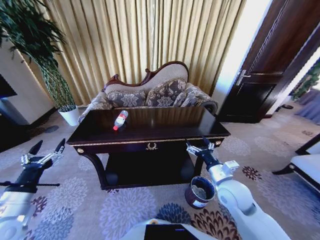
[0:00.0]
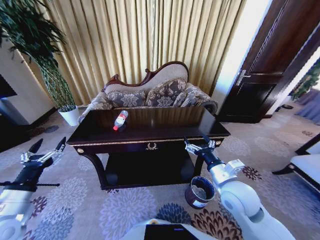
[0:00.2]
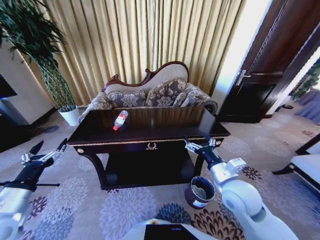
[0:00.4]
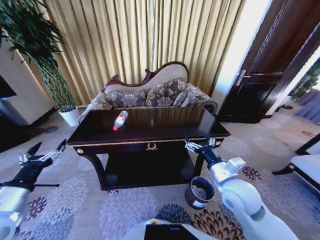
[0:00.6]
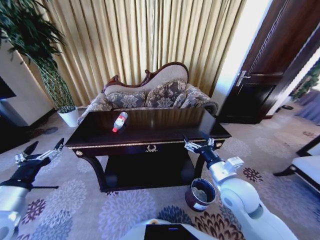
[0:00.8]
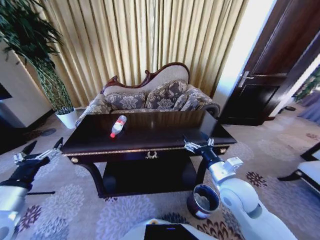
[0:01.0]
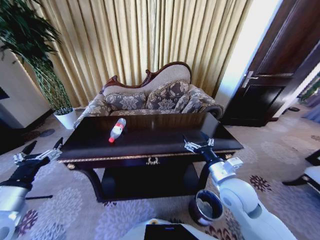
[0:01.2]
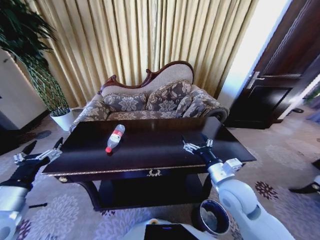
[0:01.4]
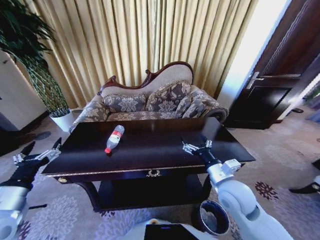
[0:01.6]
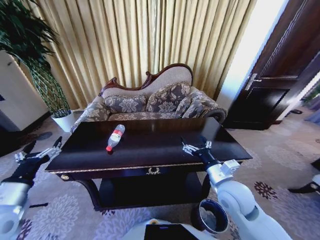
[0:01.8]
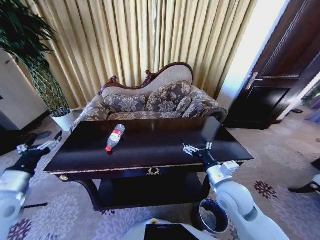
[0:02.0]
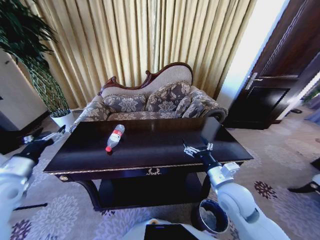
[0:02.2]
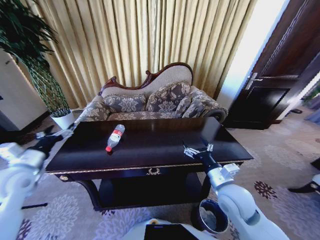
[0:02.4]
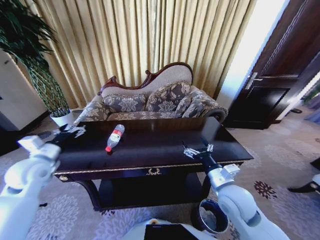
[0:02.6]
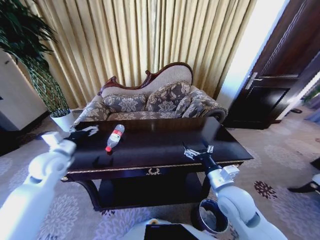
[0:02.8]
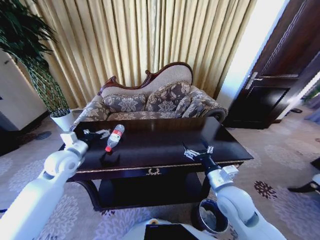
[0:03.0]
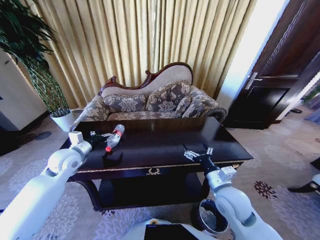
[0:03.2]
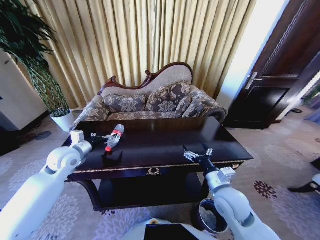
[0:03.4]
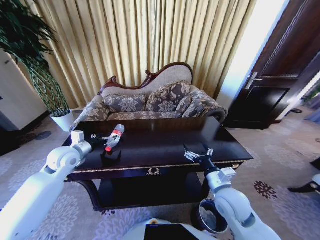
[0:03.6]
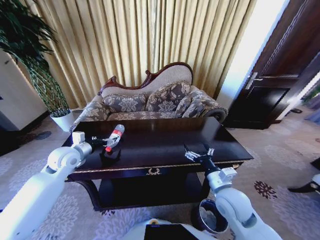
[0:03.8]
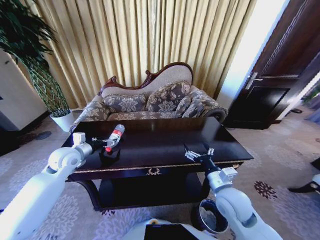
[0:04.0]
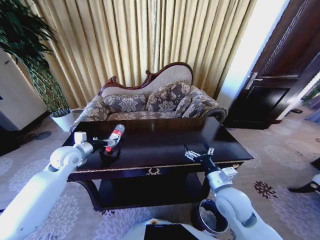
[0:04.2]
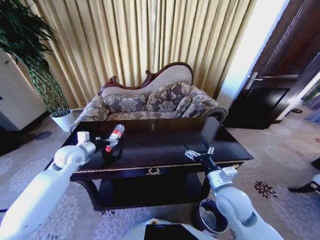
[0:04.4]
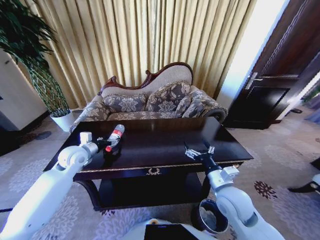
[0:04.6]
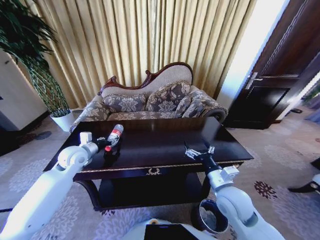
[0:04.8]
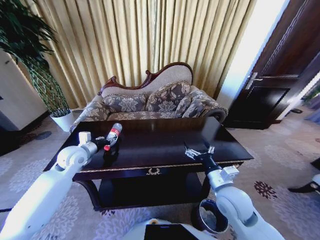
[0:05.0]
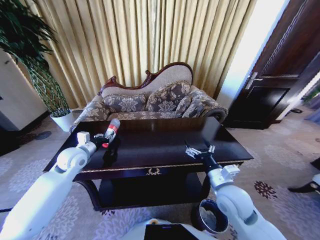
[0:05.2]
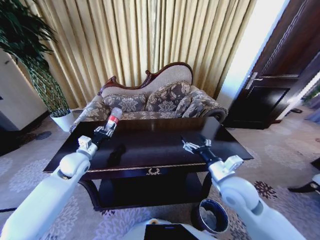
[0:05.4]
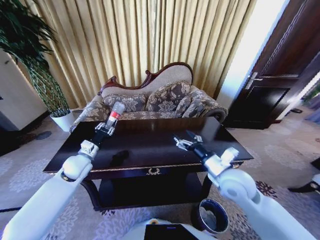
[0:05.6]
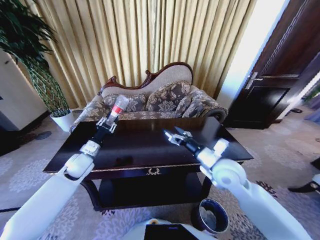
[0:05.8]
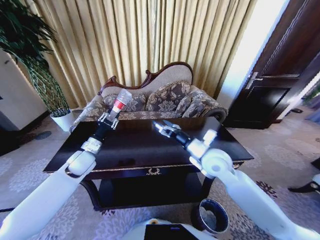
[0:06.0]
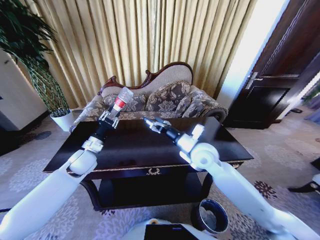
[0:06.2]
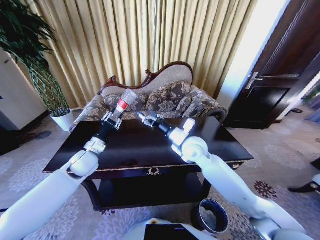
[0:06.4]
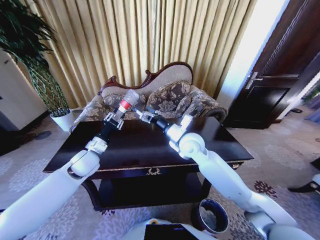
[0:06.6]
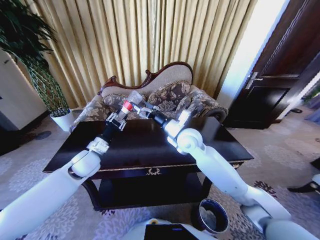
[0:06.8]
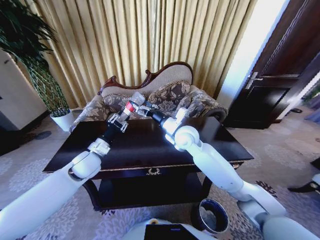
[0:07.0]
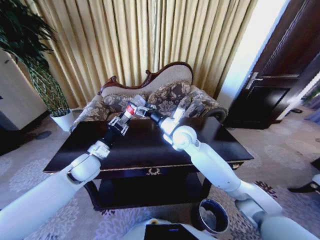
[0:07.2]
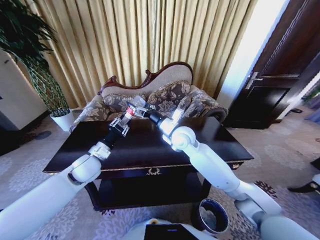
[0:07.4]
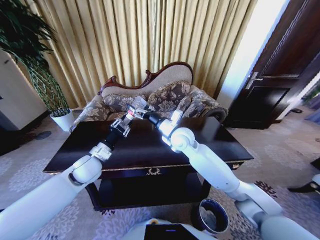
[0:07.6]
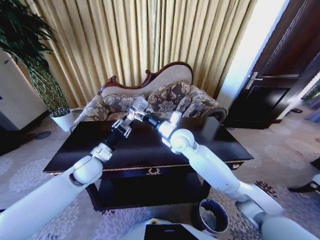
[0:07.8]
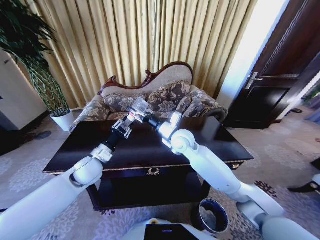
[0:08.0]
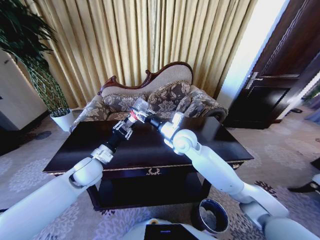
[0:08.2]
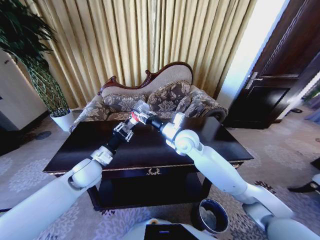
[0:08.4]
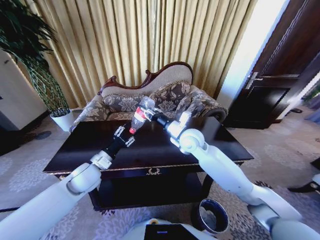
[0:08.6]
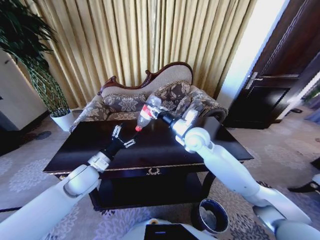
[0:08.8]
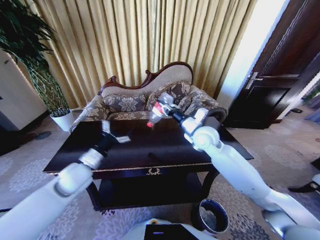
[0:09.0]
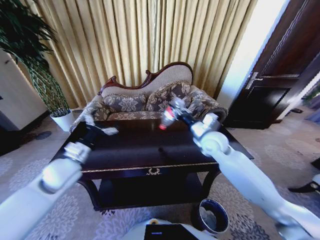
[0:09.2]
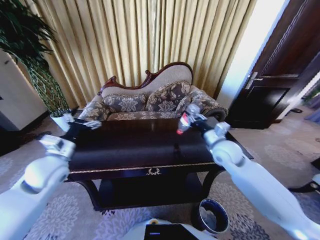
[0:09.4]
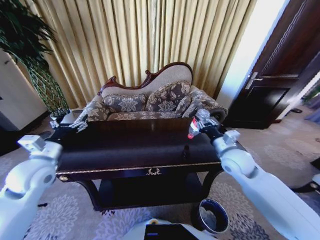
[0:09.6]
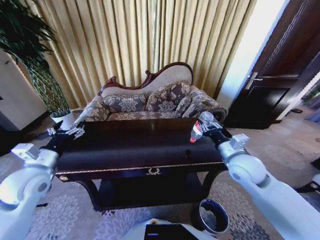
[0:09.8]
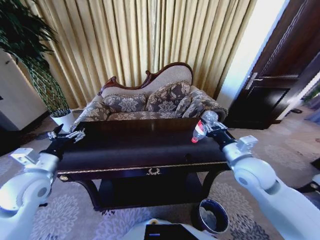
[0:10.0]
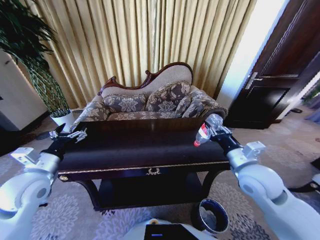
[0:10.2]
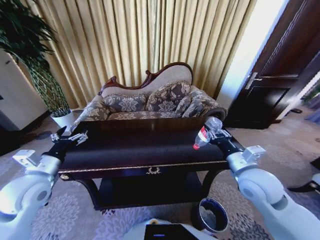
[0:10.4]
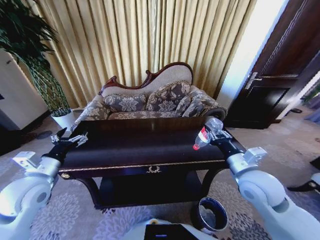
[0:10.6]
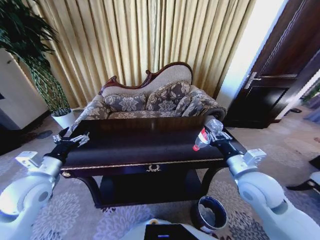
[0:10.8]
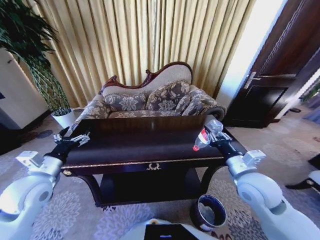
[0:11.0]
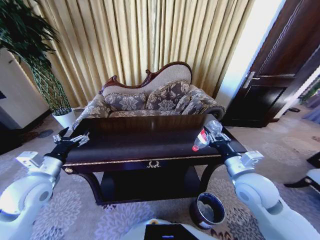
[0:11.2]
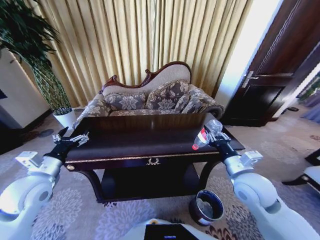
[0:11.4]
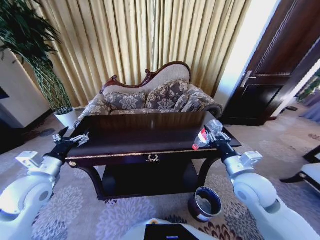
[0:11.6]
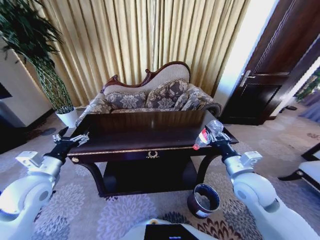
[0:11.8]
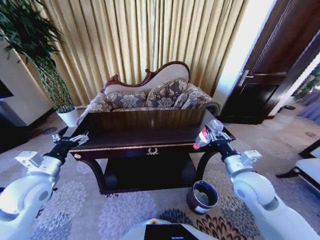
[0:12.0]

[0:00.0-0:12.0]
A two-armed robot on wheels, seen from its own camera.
Task of the whole recording: Move to the front of the table and place the trash on the table into the trash bin.
0:01.6 to 0:03.0: The left gripper moves forward, roughly 20 cm.
0:03.0 to 0:04.4: There are only small adjustments of the grippers.
0:04.4 to 0:06.0: The left gripper closes. The right gripper shifts approximately 15 cm forward and upward.
0:06.0 to 0:07.6: The right gripper heads to the left and forward, covering about 15 cm. The left gripper changes place by some 5 cm.
0:07.6 to 0:09.0: The right gripper travels to the right by roughly 10 cm, and closes; the left gripper opens its fingers.
0:09.0 to 0:10.4: The left gripper is displaced to the left and backward by approximately 10 cm. Meanwhile the right gripper travels backward and to the right by some 20 cm.

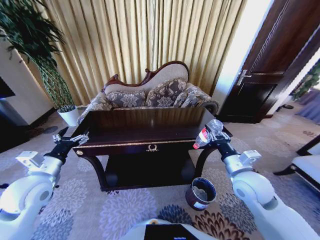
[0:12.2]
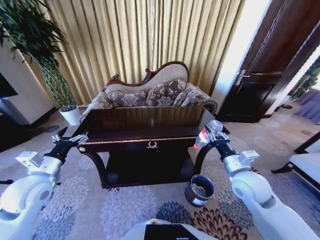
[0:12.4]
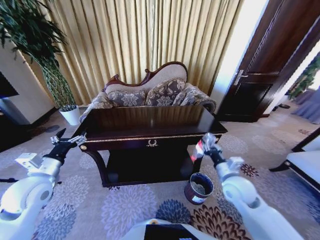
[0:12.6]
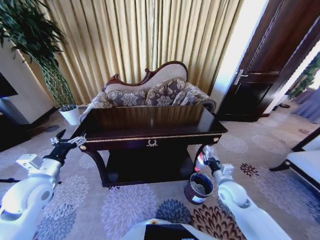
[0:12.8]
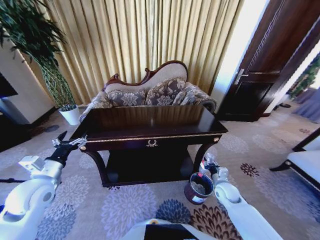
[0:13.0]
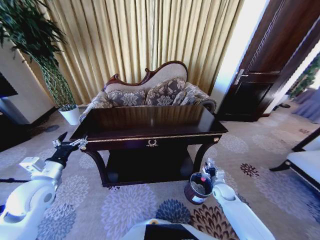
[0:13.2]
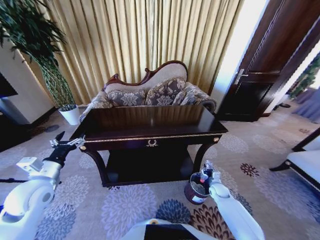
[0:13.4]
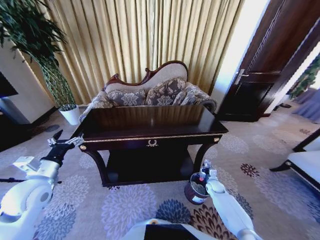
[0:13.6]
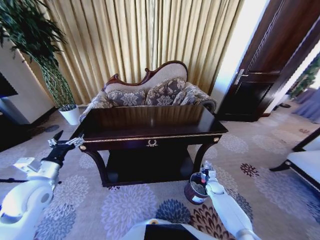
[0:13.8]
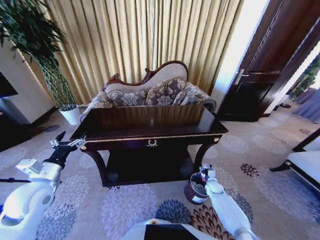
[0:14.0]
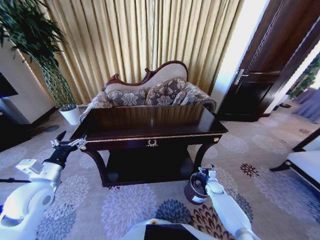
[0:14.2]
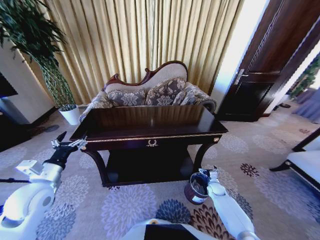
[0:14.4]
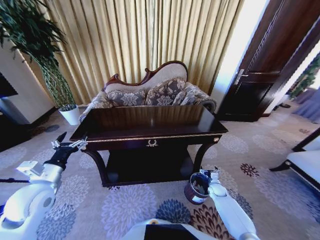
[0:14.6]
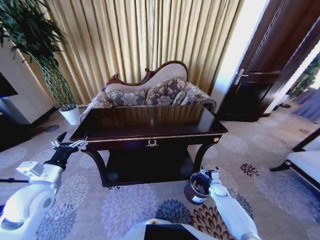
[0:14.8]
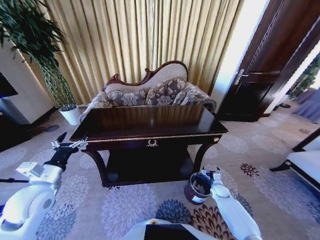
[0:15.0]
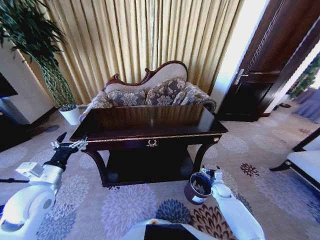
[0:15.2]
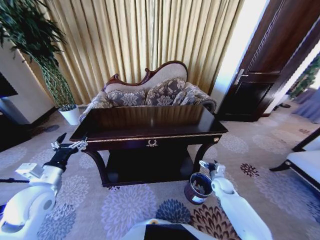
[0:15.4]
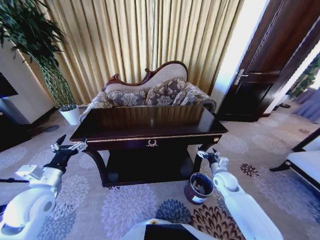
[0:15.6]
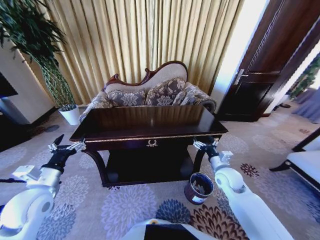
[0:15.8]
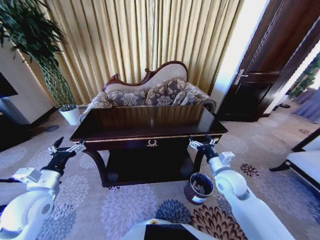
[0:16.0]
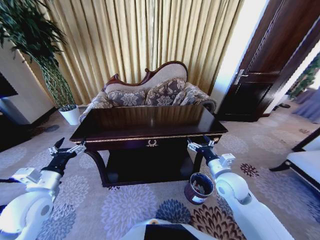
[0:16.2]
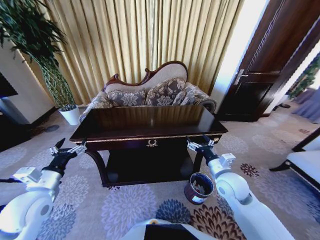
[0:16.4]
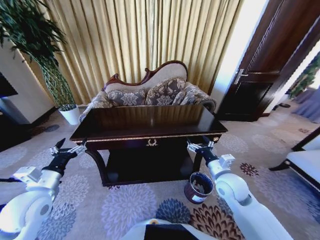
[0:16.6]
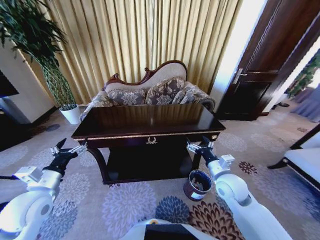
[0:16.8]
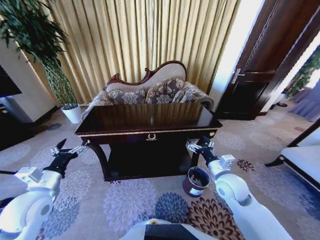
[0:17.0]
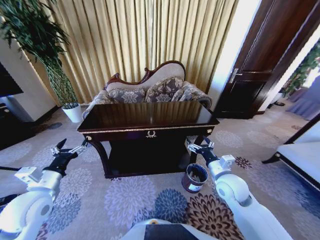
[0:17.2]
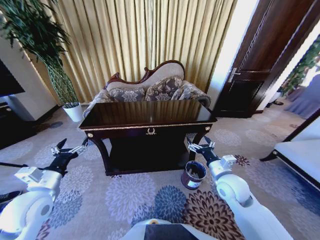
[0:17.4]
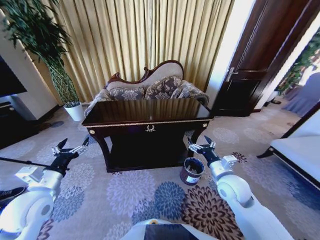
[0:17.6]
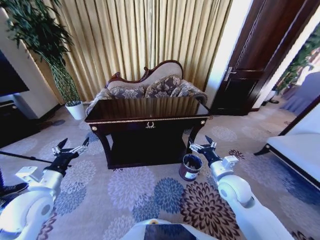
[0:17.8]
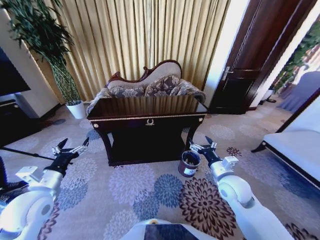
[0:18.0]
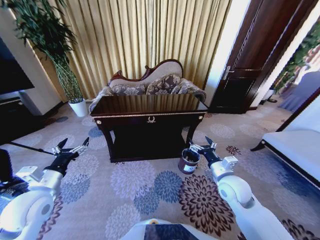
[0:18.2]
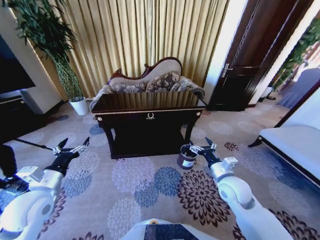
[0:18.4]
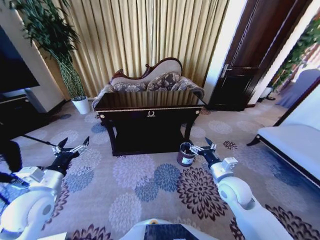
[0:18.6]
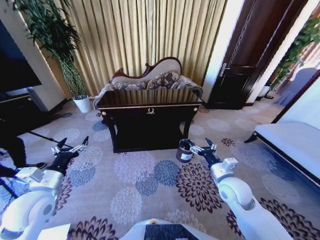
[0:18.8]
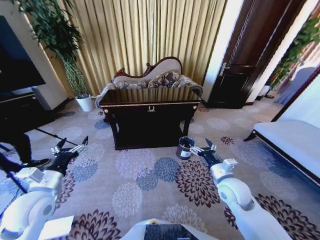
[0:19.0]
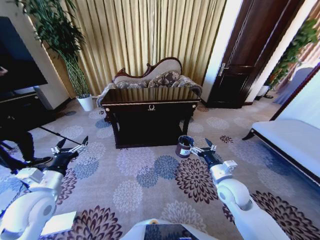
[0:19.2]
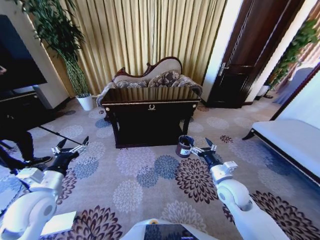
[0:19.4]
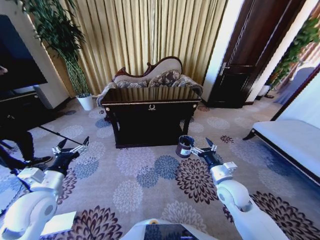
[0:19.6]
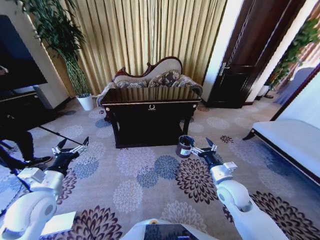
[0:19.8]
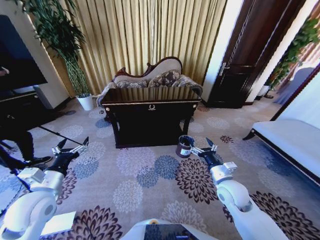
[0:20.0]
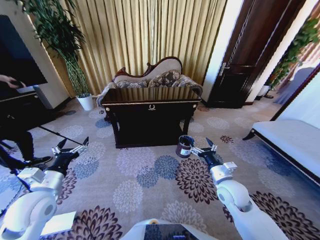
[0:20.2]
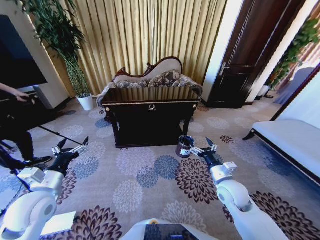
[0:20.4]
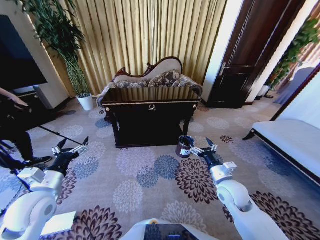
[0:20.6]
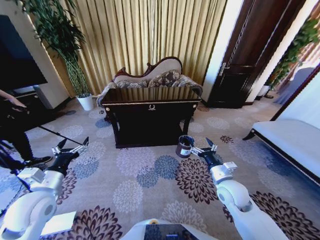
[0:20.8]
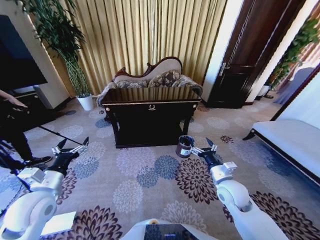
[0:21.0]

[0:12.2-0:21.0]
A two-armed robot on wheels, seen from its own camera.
Task of the whole recording: Move to the front of the table and place the trash on the table into the trash bin.
0:12.2 to 0:13.6: The right gripper travels downward by roughly 35 cm.
0:13.6 to 0:15.2: The right gripper opens up.
0:15.2 to 0:16.6: The right gripper moves upward and to the left, about 30 cm.
0:19.6 to 0:21.0: Both grippers stay about where they are.

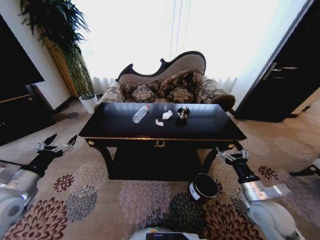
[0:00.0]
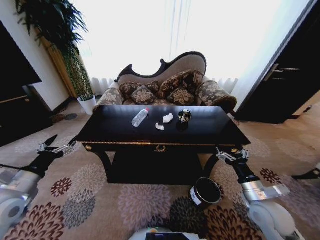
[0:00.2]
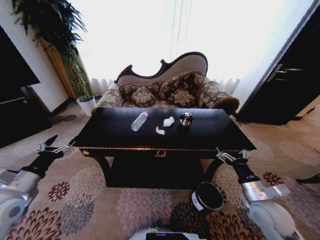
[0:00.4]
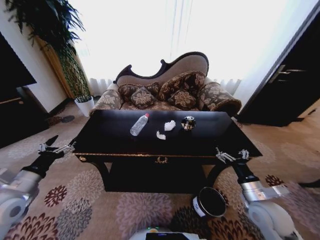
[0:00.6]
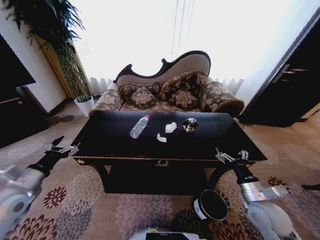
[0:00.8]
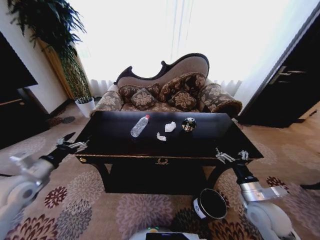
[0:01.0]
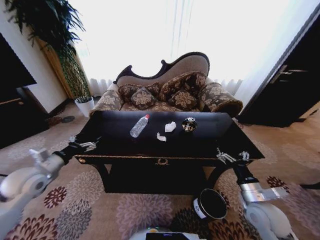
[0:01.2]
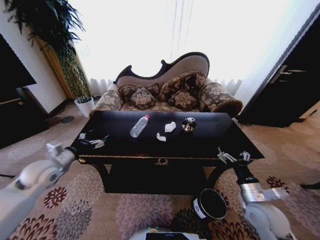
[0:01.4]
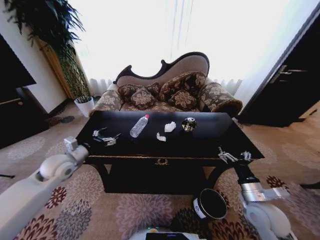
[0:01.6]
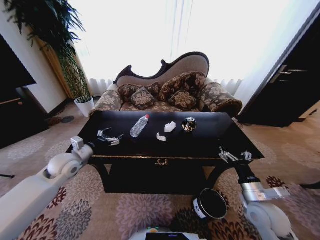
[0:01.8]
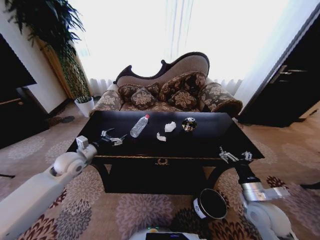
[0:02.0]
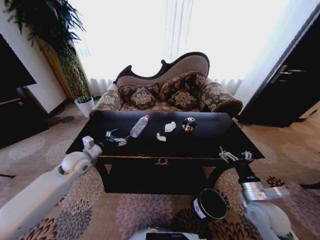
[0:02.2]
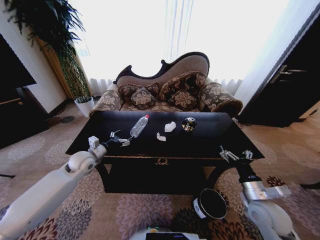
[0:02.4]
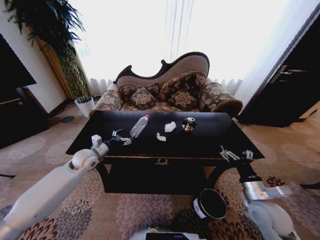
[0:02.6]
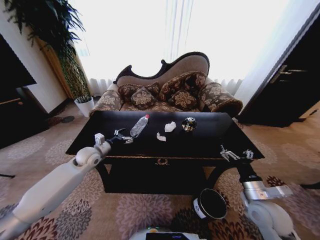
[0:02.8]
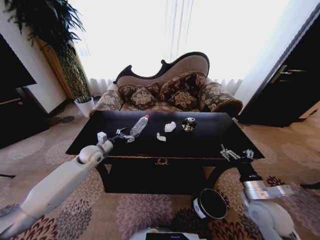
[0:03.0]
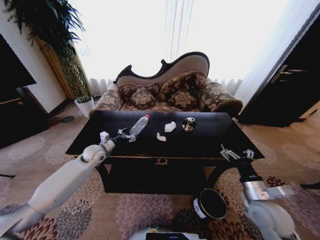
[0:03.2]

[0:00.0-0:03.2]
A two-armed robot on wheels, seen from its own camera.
Task of the whole recording: Move to the front of the table and place the trash on the table into the trash bin.
0:00.0 to 0:01.6: The left gripper travels forward and to the right by some 15 cm.
0:01.6 to 0:03.2: The left gripper moves forward, to the right and downward, about 15 cm.
